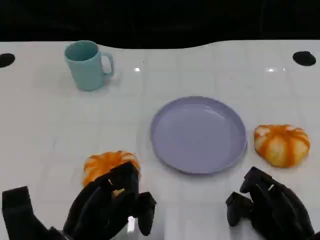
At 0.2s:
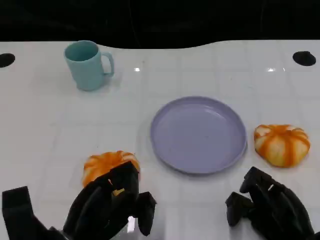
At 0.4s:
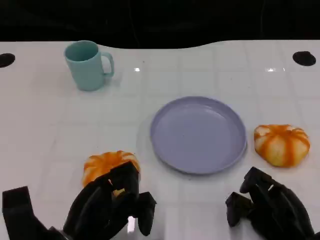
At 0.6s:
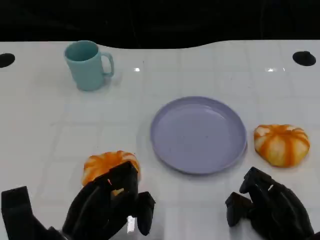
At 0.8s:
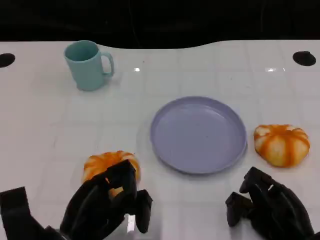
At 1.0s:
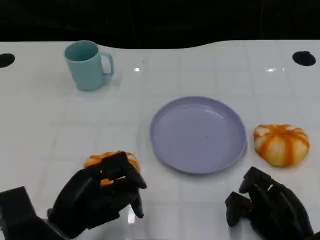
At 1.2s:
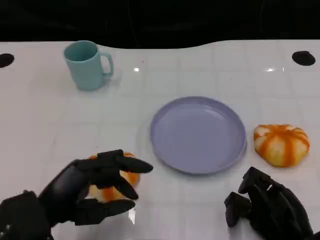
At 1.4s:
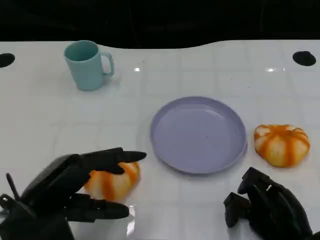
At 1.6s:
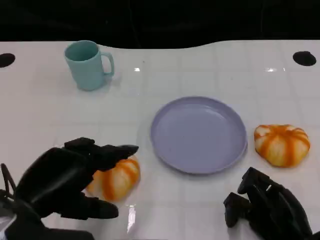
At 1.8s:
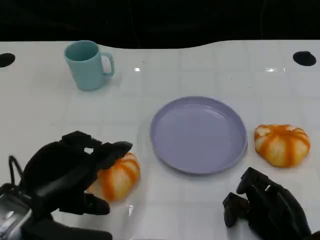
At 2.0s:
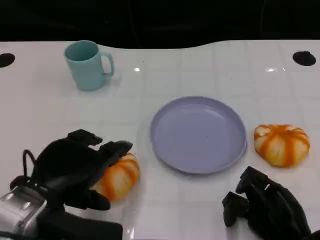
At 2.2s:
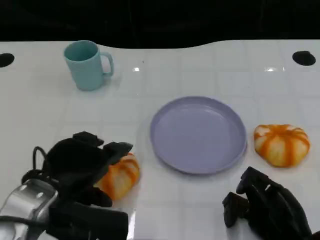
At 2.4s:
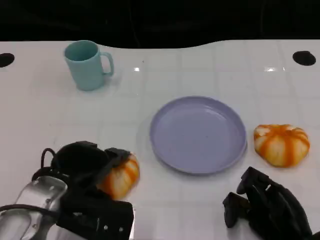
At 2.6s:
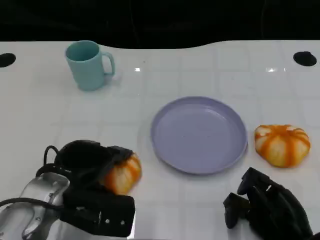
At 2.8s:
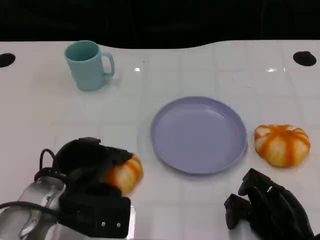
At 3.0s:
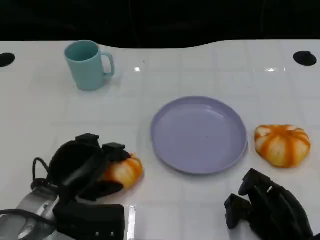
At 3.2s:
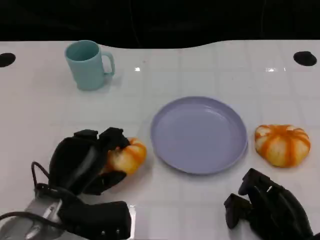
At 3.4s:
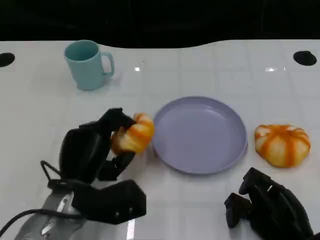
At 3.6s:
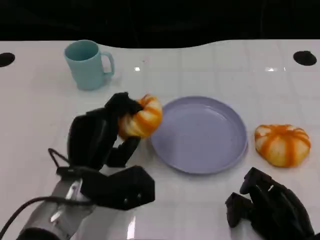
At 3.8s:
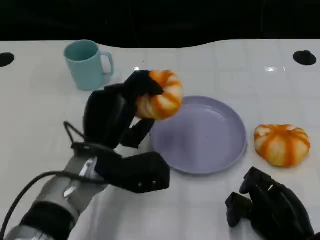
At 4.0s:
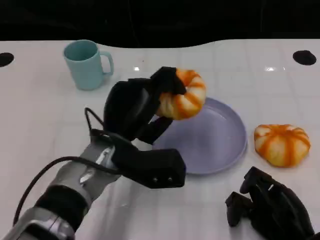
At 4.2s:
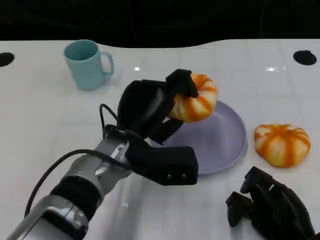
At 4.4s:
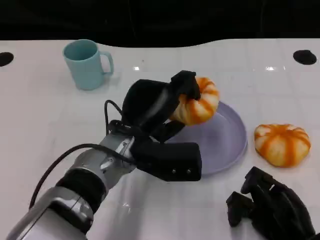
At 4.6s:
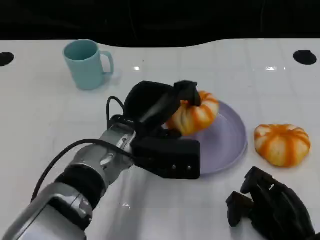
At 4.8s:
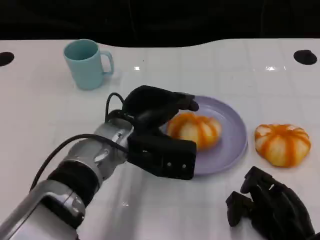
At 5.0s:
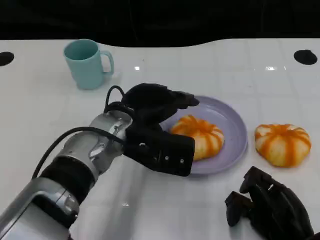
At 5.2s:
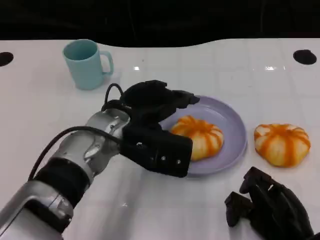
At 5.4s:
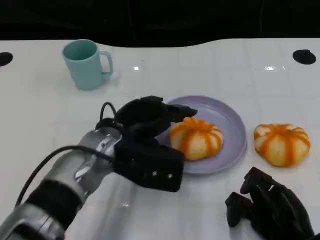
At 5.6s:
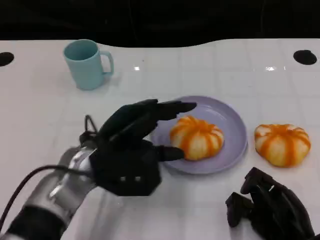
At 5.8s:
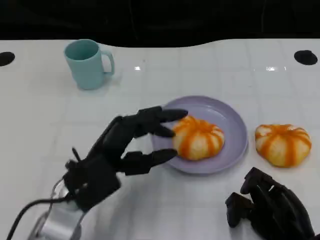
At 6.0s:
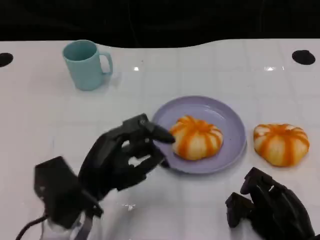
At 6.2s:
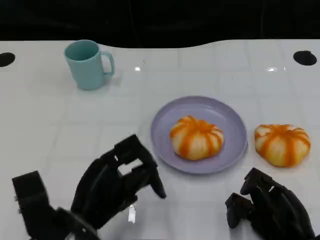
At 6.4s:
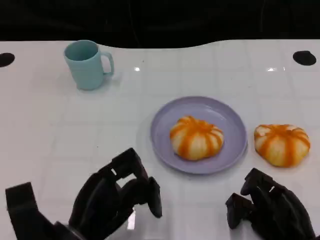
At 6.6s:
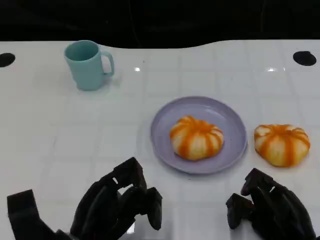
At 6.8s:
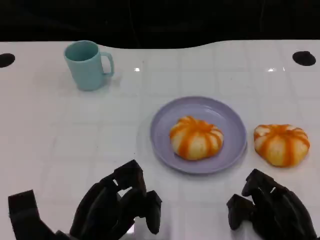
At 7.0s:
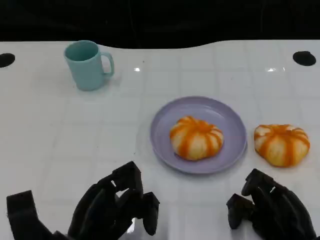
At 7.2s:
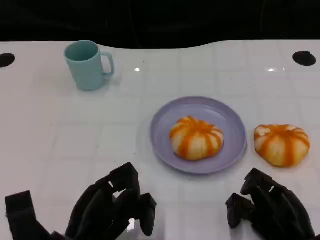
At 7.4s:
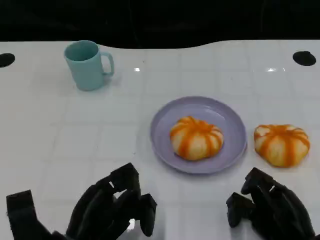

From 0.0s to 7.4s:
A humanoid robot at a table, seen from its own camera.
Task of the whole recording: Grasp the bread from the table and place it into the plate.
From 0.0s to 1.4s: The left hand is displaced upward by roughly 10 cm.
From 1.4s to 3.0s: The left hand travels downward and forward by about 10 cm.
From 3.0s to 4.4s: The left hand moves to the right, upward and forward, some 15 cm.
From 4.4s to 6.0s: The left hand moves backward and to the left, about 10 cm.
From 6.0s to 7.4s: The left hand ends up approximately 5 cm from where it was.

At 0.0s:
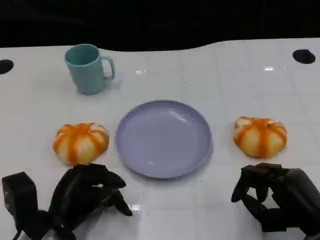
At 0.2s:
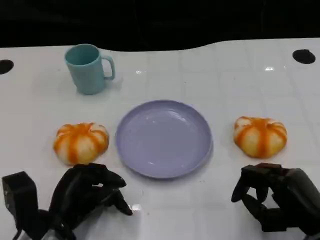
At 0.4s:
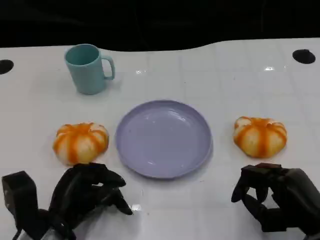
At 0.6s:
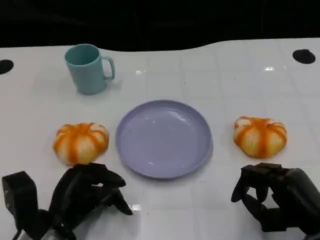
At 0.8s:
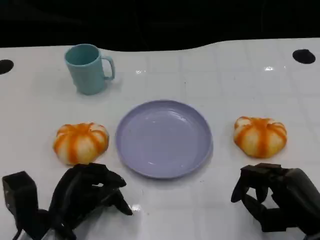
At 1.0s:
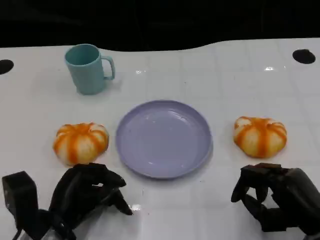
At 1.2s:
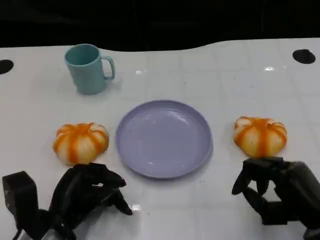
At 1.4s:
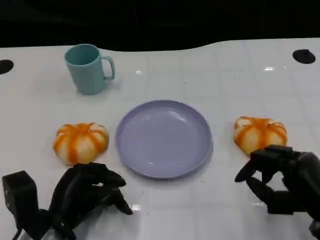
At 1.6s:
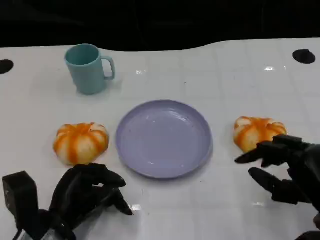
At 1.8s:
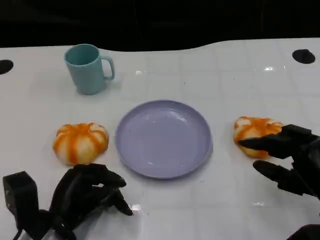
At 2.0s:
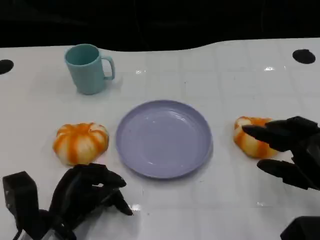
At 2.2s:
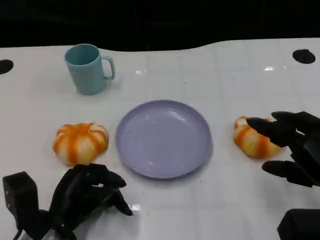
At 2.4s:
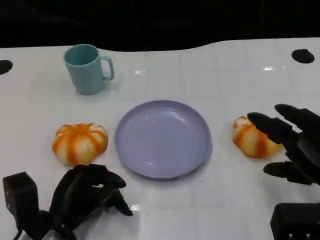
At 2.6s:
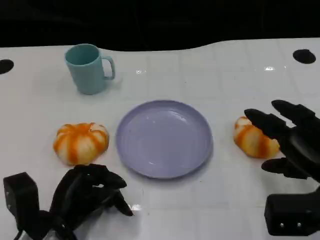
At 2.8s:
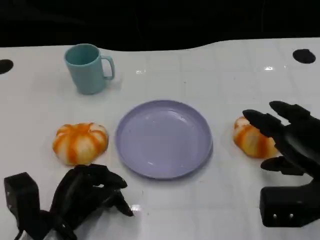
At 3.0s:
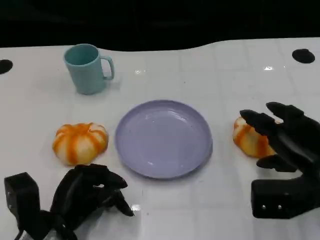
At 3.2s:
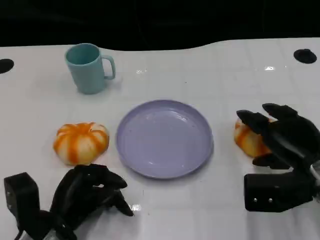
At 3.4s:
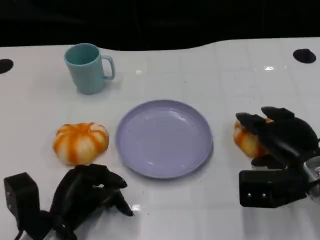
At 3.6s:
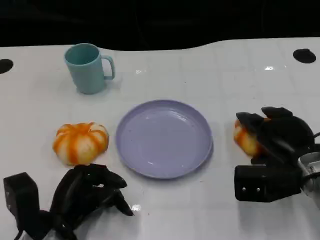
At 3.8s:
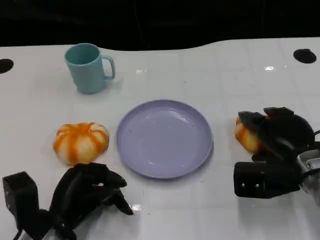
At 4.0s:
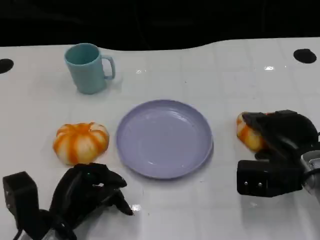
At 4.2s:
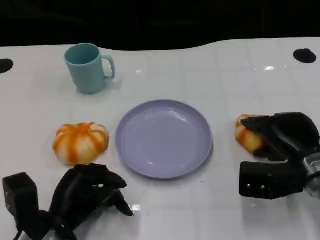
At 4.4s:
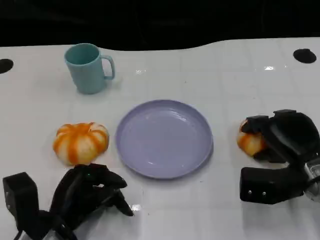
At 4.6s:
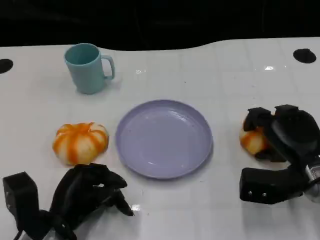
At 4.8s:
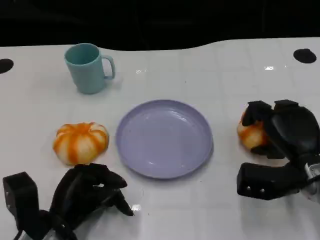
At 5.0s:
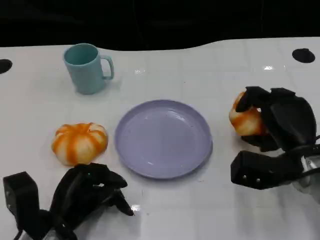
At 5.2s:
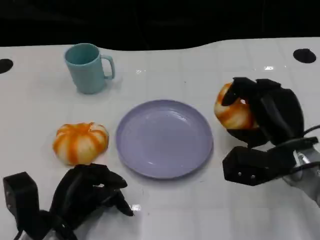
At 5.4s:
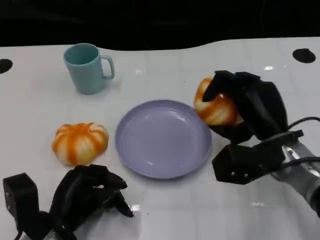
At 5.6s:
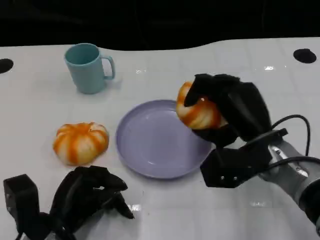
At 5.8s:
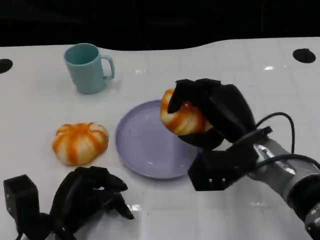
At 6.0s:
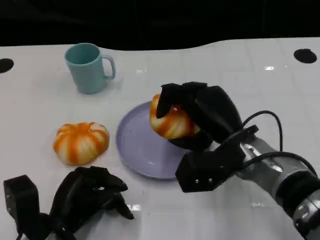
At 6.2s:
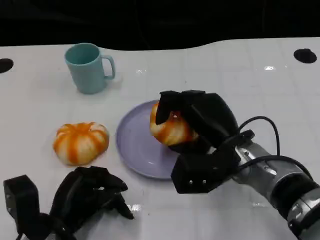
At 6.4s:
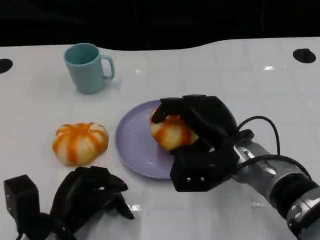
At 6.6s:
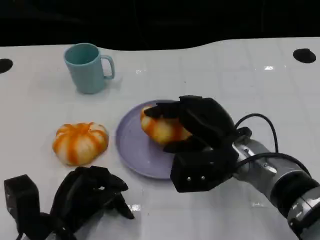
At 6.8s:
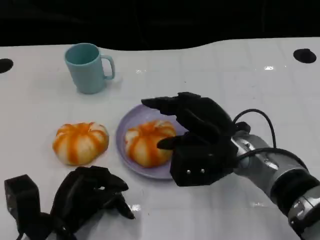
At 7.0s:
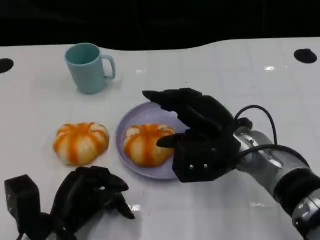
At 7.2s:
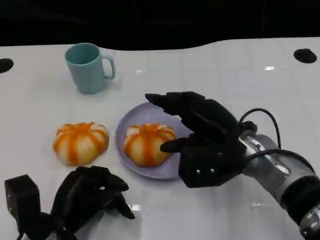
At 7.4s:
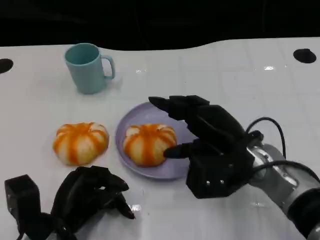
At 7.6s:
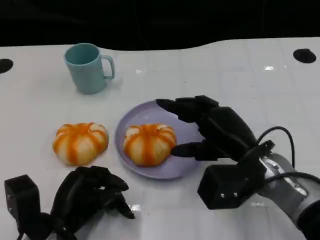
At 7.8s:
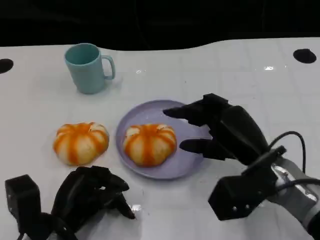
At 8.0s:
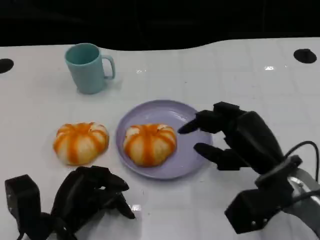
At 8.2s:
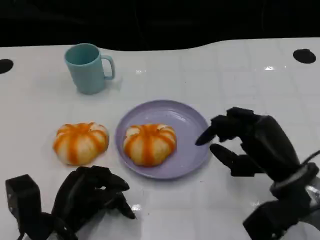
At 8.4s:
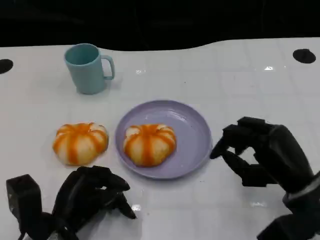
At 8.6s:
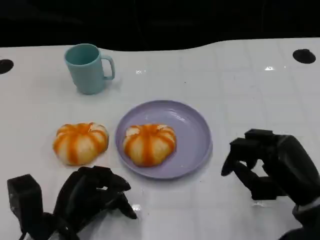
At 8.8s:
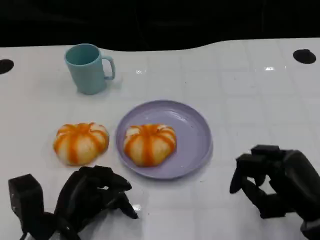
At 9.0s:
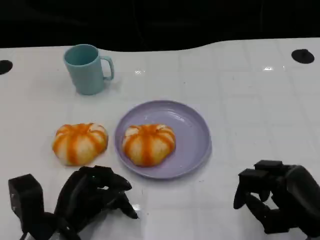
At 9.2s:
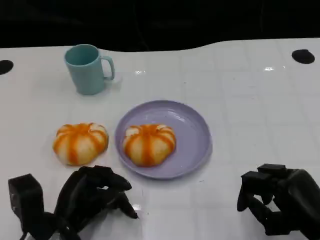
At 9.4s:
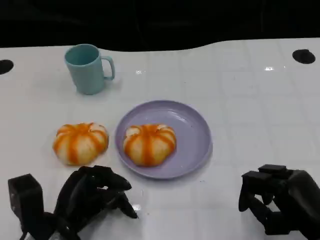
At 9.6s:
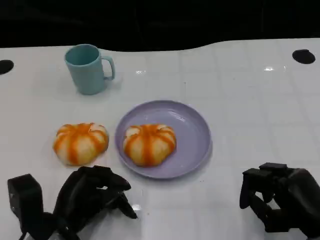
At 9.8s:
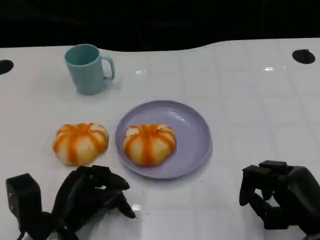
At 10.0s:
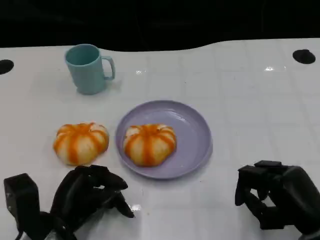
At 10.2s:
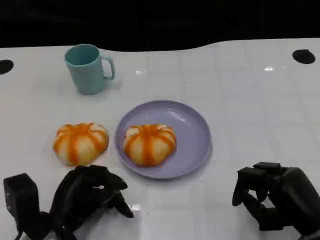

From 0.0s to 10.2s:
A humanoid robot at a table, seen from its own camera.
Task of the whole recording: Grasp the bread from the table and place it into the plate.
From 0.0s to 1.4s: The hands make only small movements.
From 1.4s to 3.0s: The right hand moves forward, approximately 5 cm.
From 3.0s to 4.4s: The hands stay close to where they were, moving slightly.
From 4.4s to 5.8s: The right hand shifts approximately 10 cm to the left and upward.
From 7.2s to 8.8s: The right hand goes roughly 15 cm to the right and backward.
From 8.8s to 10.2s: The hands move only a little.

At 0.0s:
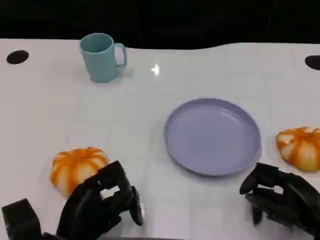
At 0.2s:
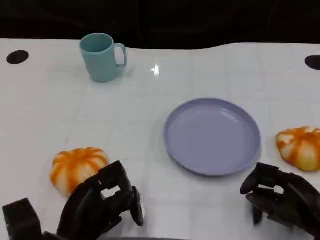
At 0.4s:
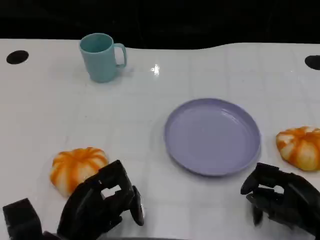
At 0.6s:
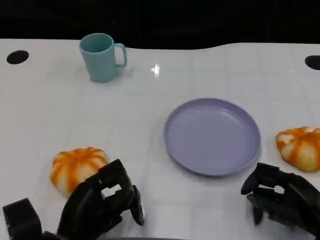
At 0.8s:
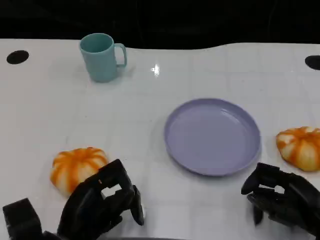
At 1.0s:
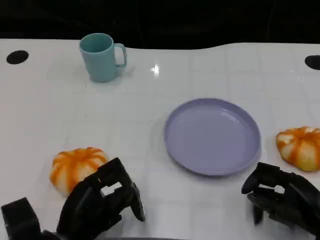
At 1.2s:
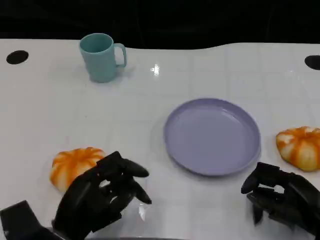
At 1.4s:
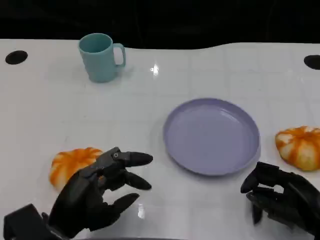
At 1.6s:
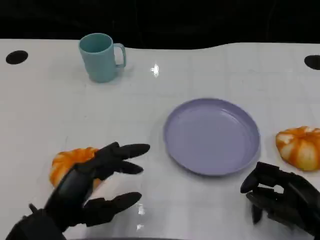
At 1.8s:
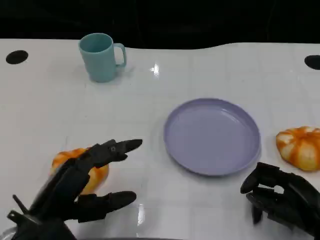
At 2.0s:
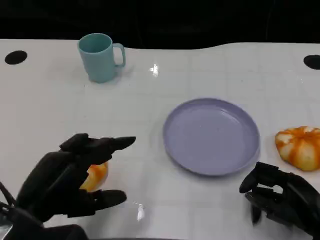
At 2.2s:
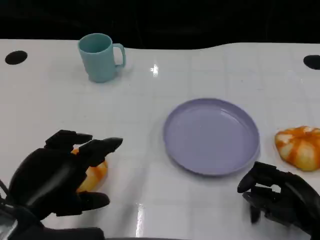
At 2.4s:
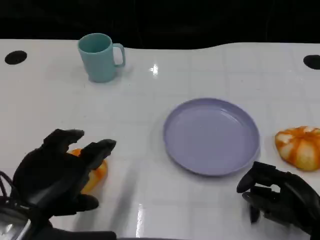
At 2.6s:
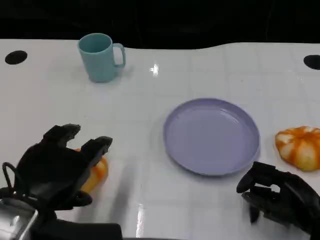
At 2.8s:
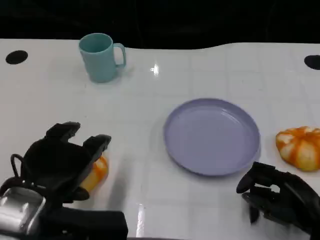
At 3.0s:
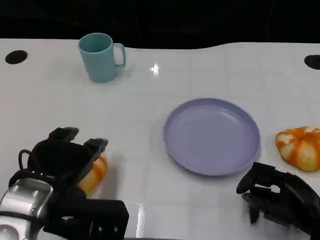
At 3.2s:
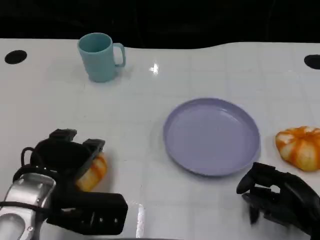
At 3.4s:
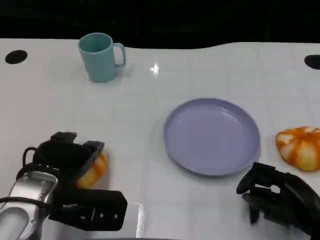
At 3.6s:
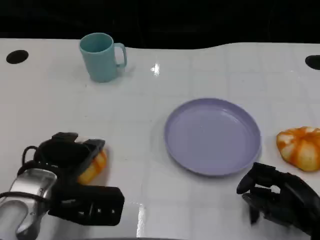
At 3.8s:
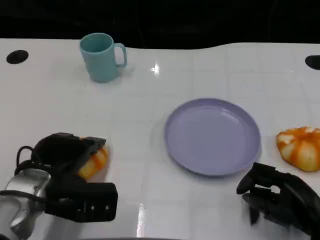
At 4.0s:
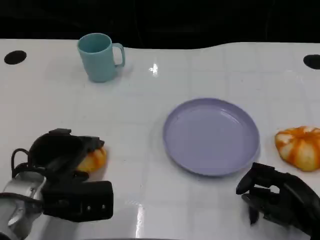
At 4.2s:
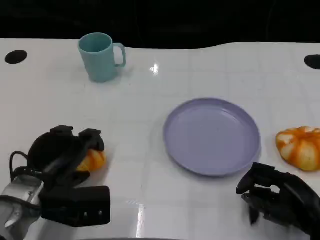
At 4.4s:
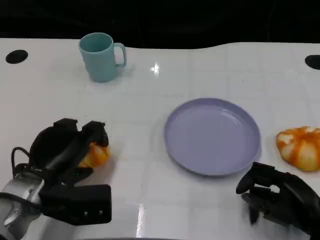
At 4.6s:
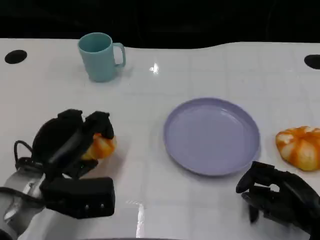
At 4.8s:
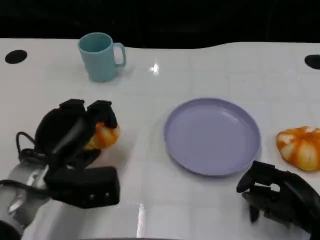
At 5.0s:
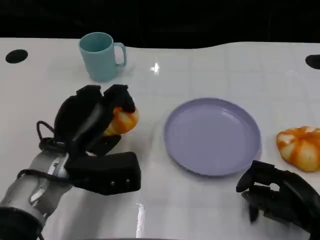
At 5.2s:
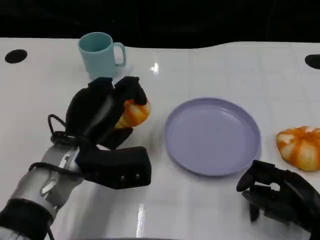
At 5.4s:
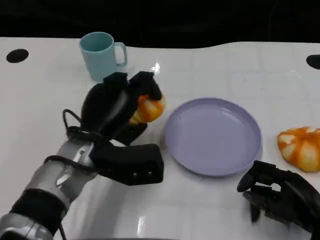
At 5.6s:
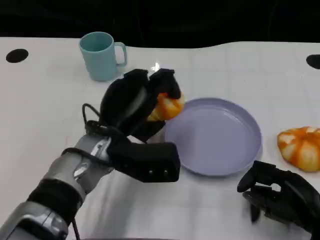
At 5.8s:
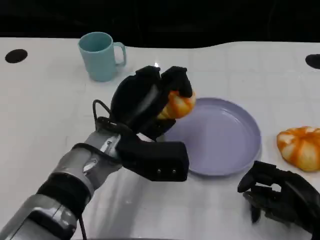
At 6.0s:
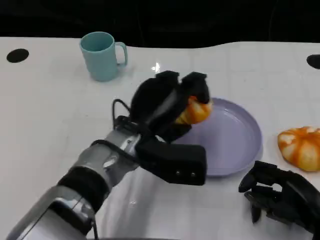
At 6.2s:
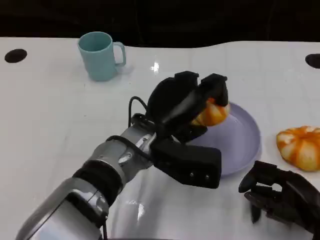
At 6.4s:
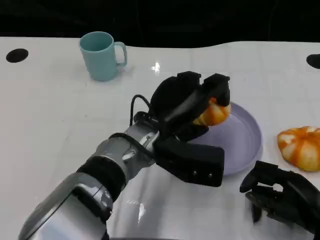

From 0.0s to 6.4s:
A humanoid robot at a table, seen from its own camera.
Task of the whole recording: Grasp the bread from the table and place it into the plate.
From 0.0s to 1.6s: The left hand goes about 5 cm upward.
From 1.6s to 3.2s: The left hand is displaced forward by some 5 cm.
From 4.8s to 6.4s: The left hand goes some 15 cm to the right.
